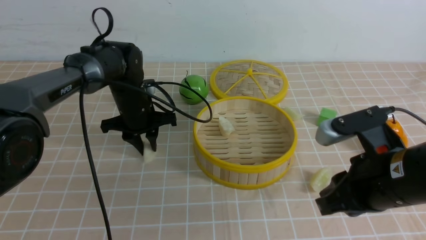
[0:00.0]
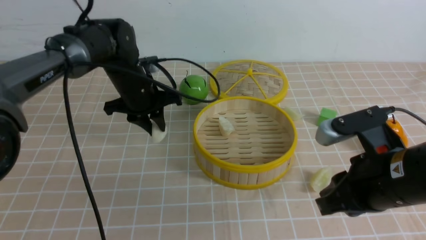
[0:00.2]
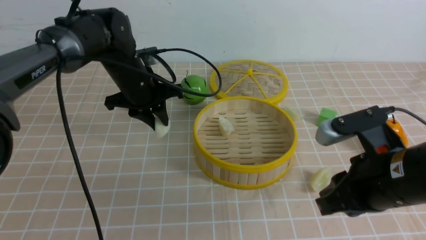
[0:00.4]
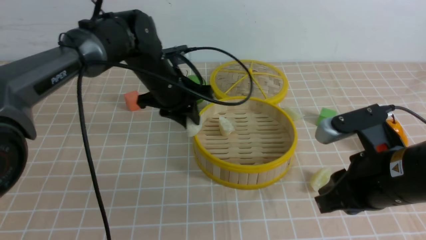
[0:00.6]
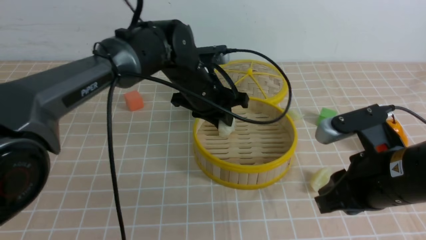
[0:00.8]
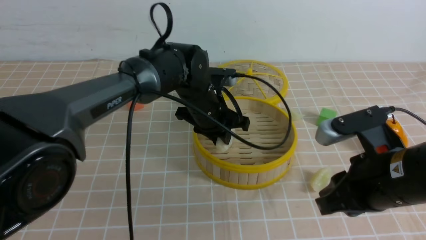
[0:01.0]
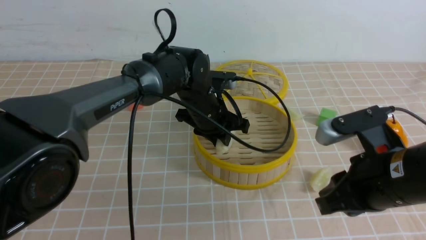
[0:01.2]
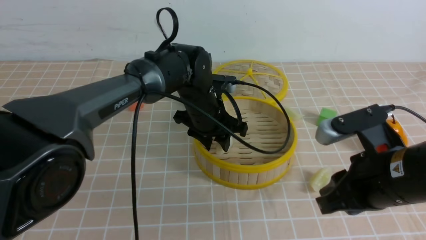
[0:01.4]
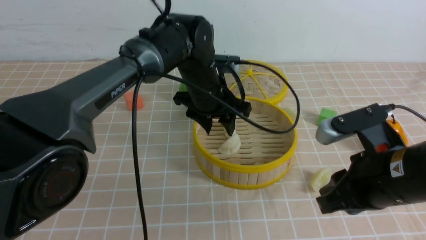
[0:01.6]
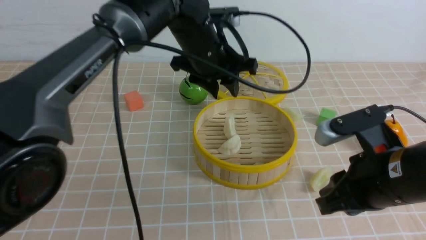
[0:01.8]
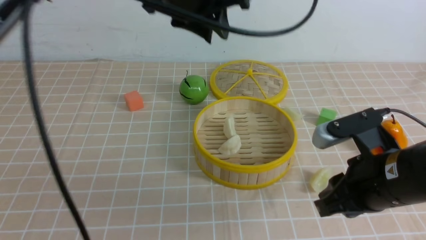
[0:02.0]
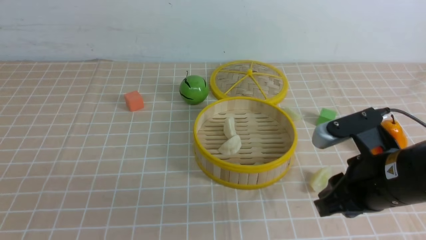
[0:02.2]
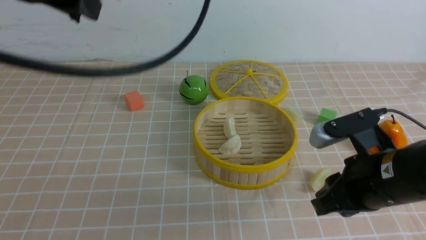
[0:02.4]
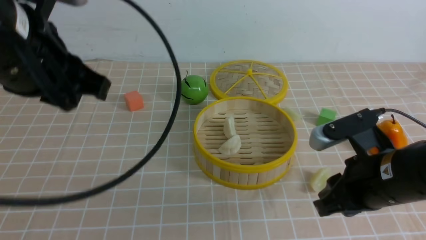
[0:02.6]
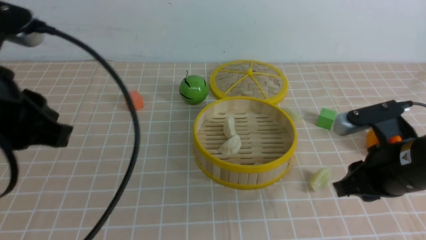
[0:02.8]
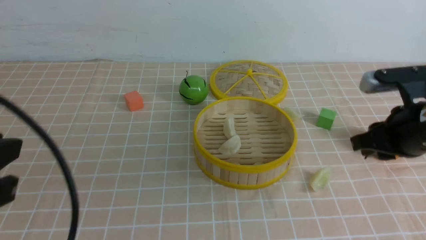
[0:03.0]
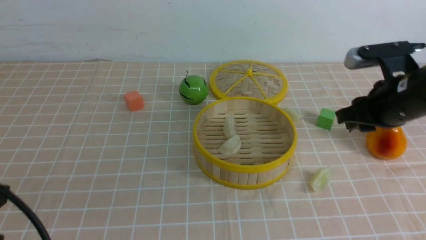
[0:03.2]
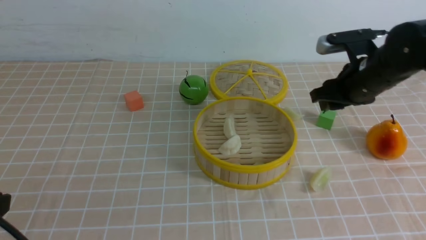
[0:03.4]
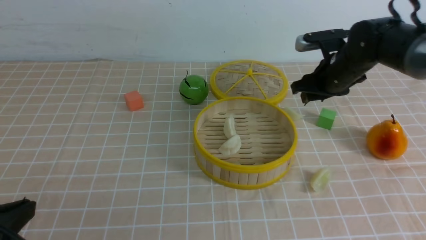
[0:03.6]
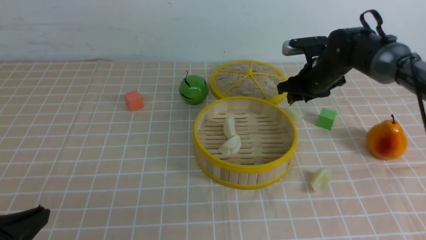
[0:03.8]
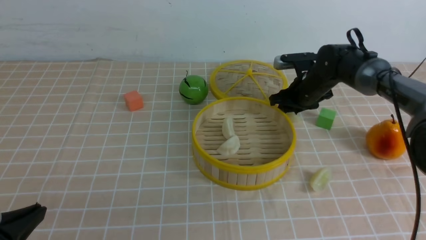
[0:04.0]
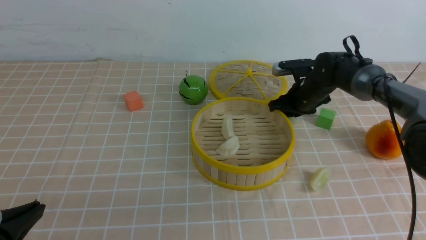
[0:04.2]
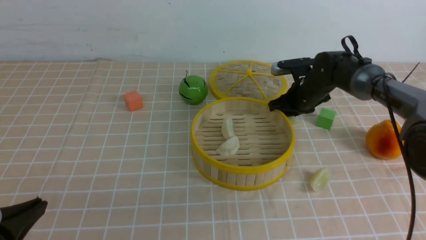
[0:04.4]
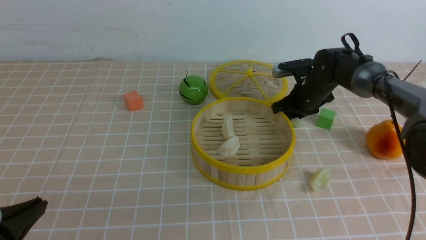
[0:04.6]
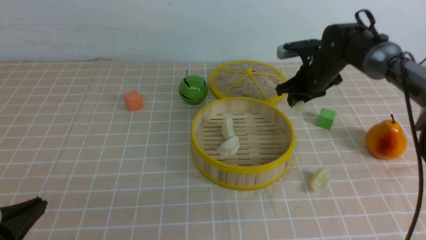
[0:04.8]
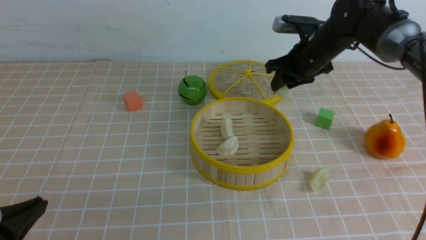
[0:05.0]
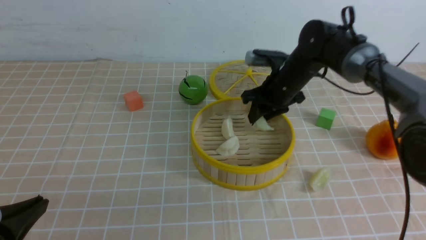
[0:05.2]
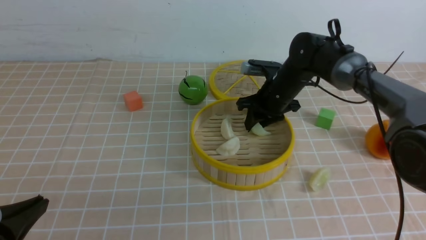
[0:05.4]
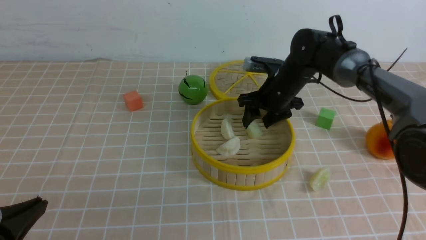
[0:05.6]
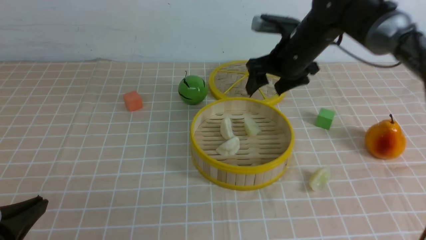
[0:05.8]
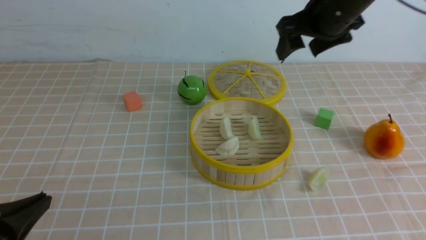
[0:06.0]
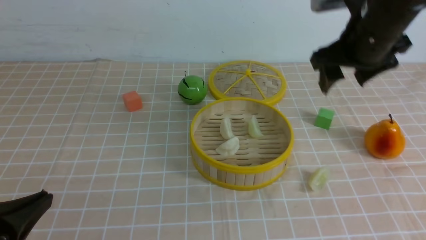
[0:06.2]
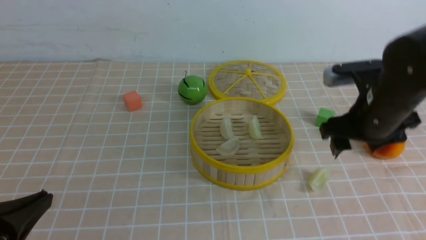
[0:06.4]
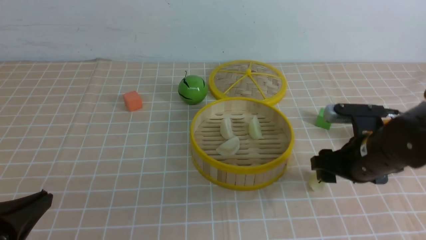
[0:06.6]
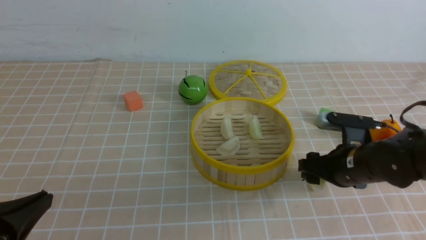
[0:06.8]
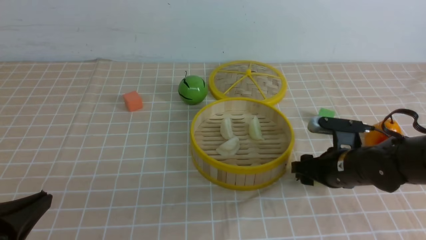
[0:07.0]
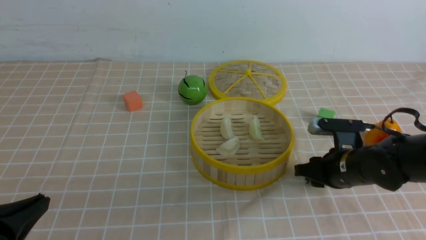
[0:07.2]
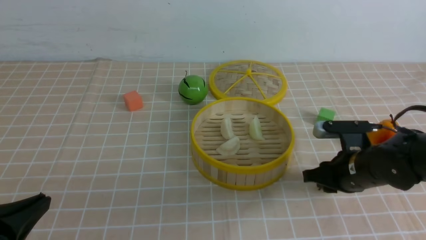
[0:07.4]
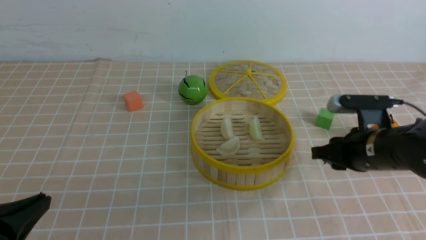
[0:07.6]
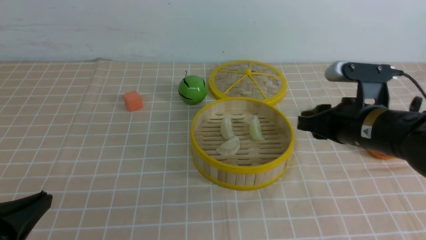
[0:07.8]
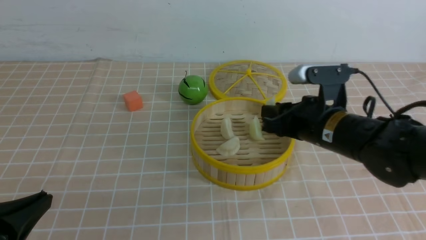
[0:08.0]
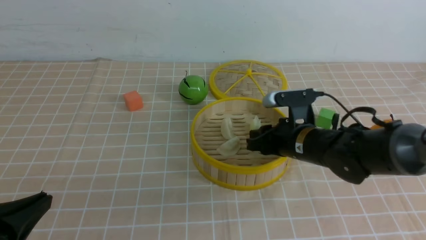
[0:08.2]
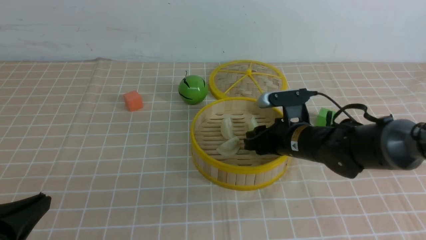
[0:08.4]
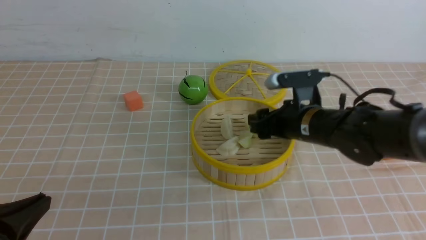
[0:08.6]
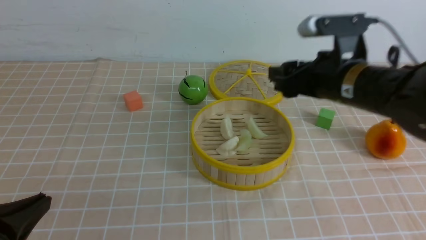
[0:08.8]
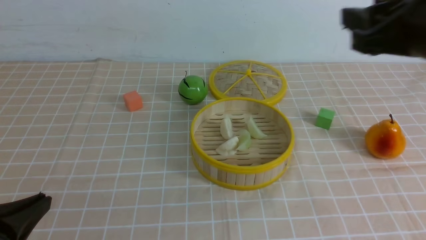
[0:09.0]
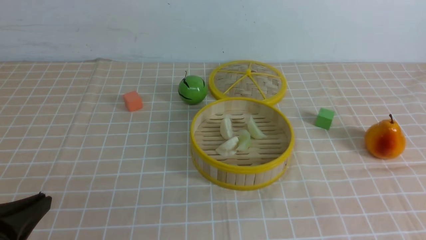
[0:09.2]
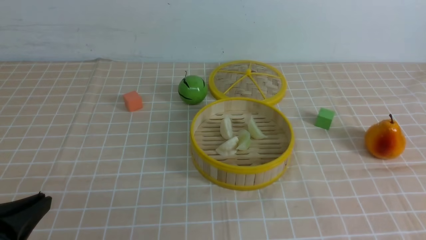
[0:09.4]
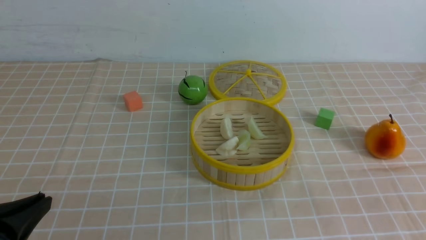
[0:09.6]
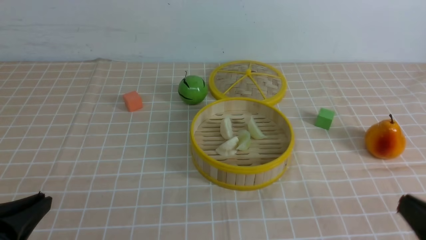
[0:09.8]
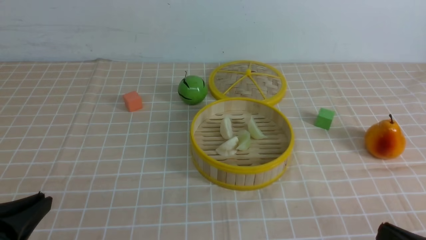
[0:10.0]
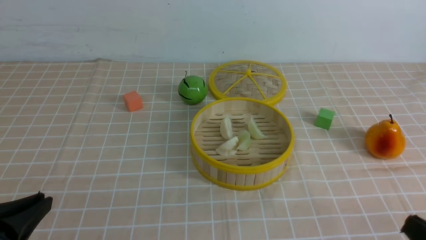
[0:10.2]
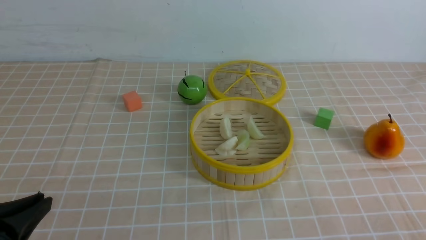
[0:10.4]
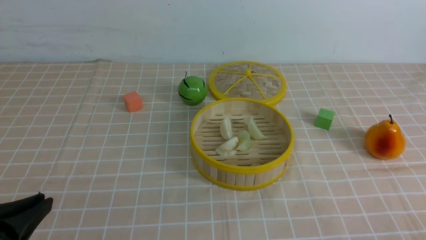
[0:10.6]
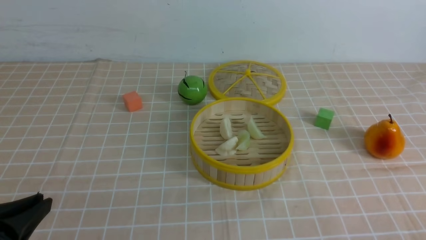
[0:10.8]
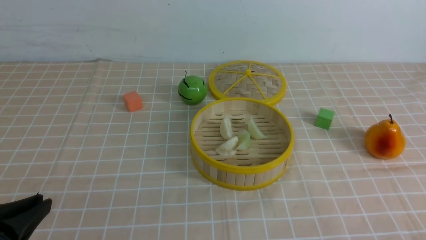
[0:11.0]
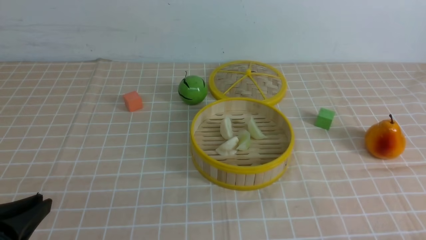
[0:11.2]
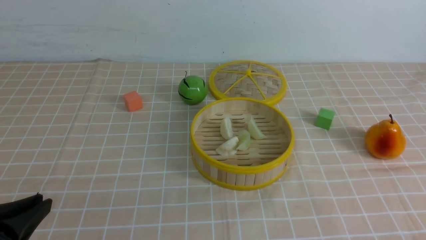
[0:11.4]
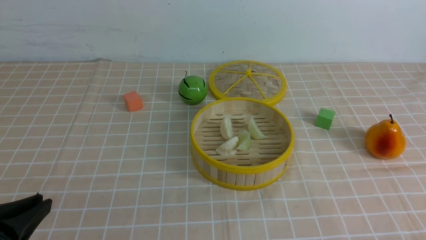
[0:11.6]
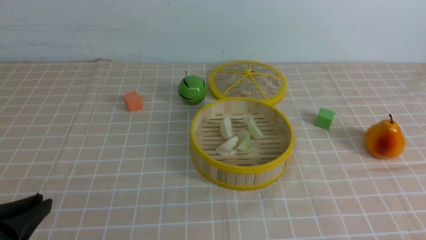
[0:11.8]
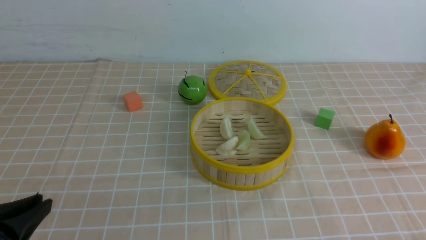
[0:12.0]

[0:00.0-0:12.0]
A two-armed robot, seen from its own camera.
Task of the whole recording: put the dumplings into the steamer on the table with the brown tablecloth.
Step, 0:00.0 to 0:01.6: use the left arm to put the dumpling into the steamer.
Step, 0:01.8 to 0:04.4: use the right arm to grab a dumpling.
Step, 0:04.6 to 0:05.6: use the right arm to put the dumpling into the steamer.
Step, 0:05.8 to 0:07.2: use the right arm to grab a dumpling.
Step, 0:07.4 to 0:08.6: use the right arm to put the dumpling into the steamer.
0:00.0 to 0:01.6: The left gripper moves to the right and upward, approximately 15 cm.
0:01.6 to 0:03.0: The right gripper heads forward, covering some 5 cm. The left gripper goes roughly 35 cm backward and to the left, and closes its fingers.
0:03.0 to 0:04.4: The right gripper heads forward and downward, covering about 25 cm. The left gripper shifts about 10 cm downward, and closes up.
0:04.4 to 0:06.0: The right gripper goes some 25 cm upward and backward, and opens up.
0:06.0 to 0:07.6: The right gripper shifts some 20 cm downward and backward, and closes its fingers.
0:07.6 to 0:09.0: The right gripper is displaced upward and backward by approximately 20 cm.
0:09.0 to 0:10.4: The right gripper is displaced downward and backward by approximately 25 cm, and closes.

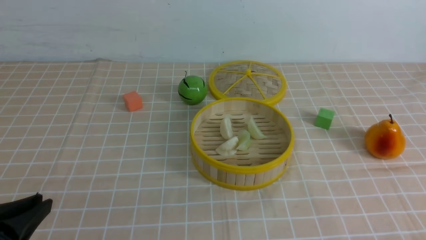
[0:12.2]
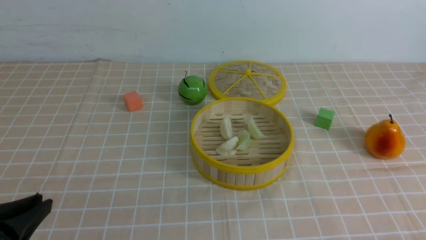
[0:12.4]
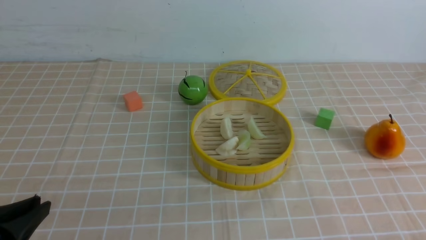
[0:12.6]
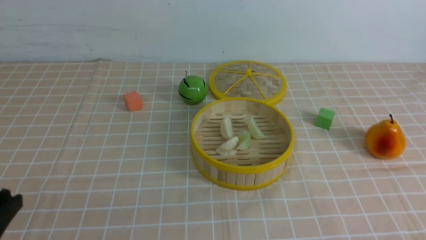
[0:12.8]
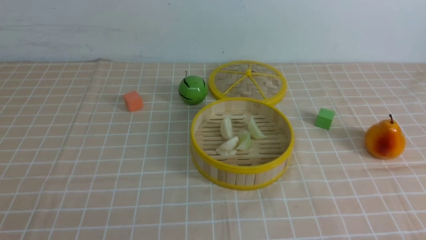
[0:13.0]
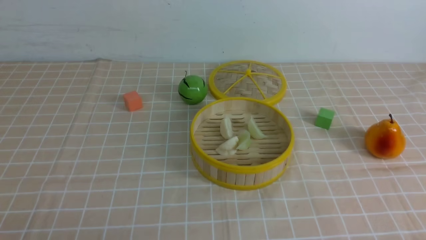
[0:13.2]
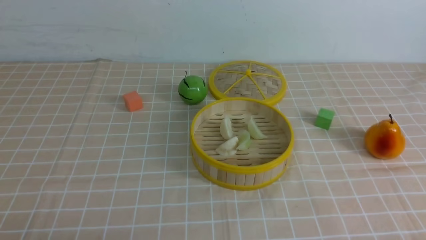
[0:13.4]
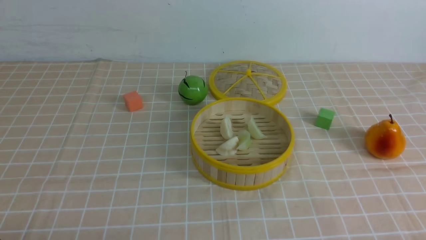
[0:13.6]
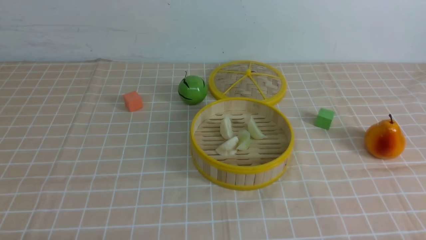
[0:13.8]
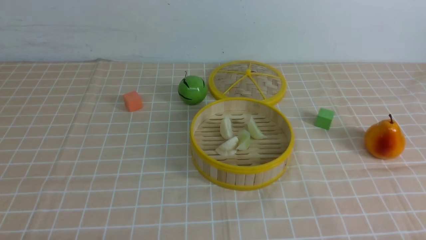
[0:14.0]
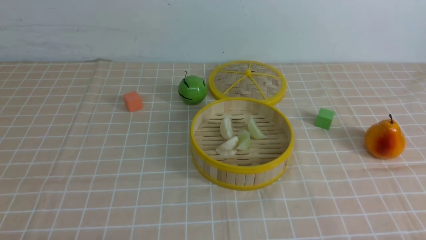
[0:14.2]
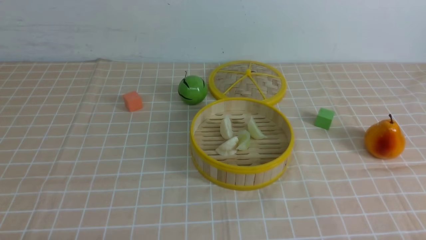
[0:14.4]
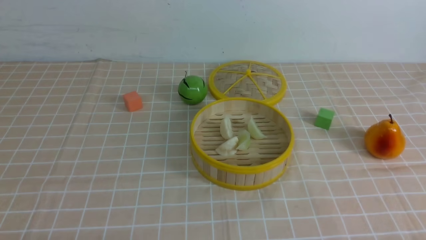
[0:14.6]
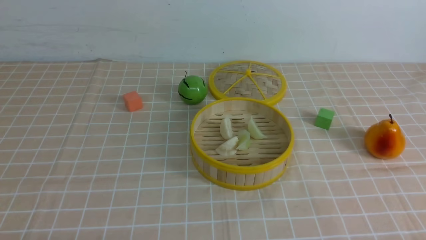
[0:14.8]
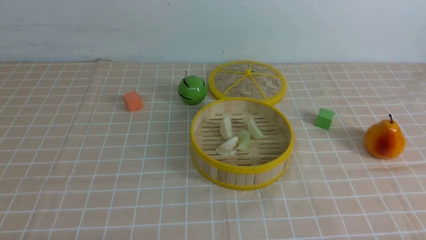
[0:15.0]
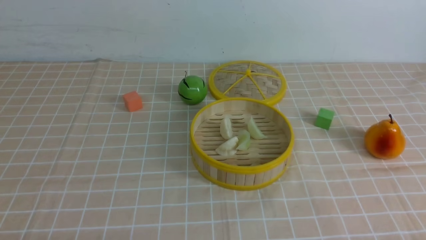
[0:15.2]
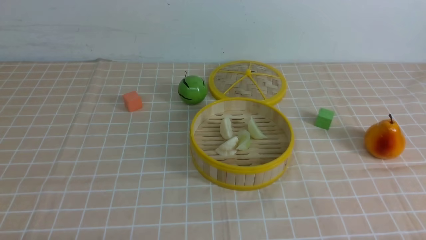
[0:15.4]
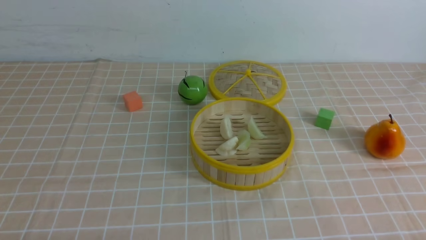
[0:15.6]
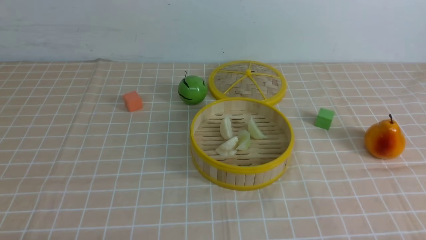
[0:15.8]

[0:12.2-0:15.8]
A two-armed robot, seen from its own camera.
Task of the whole recording: put the dumplings into the steamer on the table with the brown tablecloth.
0:12.2 to 0:14.0: The left gripper goes some 10 cm downward.
0:14.0 to 0:15.8: Neither gripper changes place.

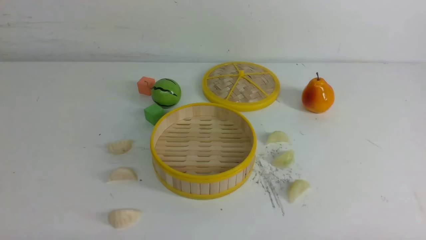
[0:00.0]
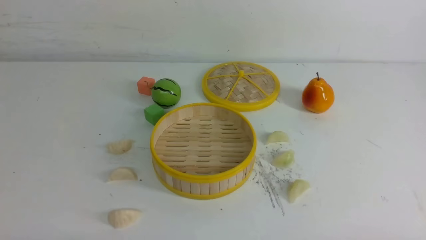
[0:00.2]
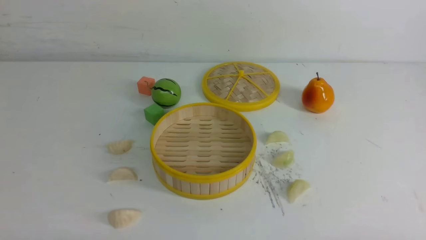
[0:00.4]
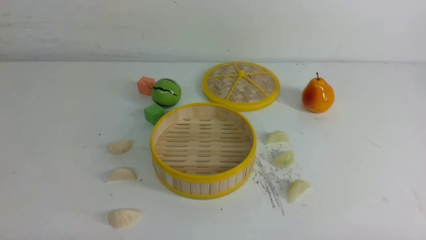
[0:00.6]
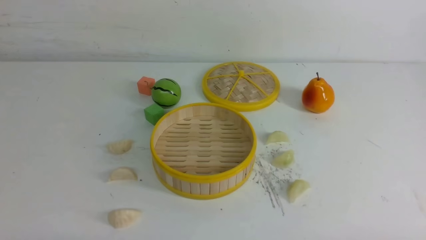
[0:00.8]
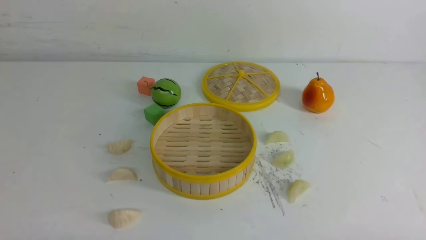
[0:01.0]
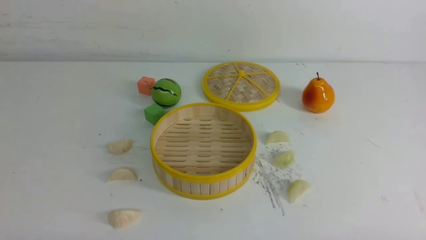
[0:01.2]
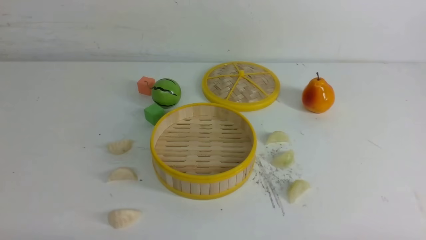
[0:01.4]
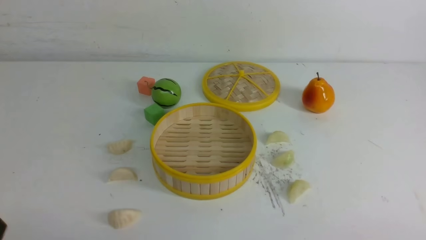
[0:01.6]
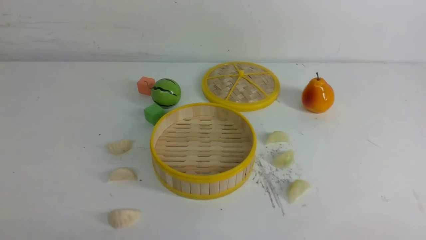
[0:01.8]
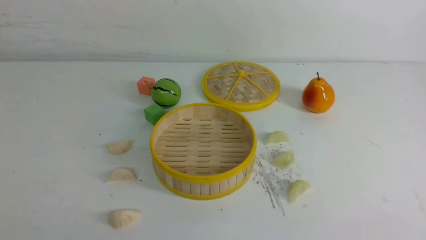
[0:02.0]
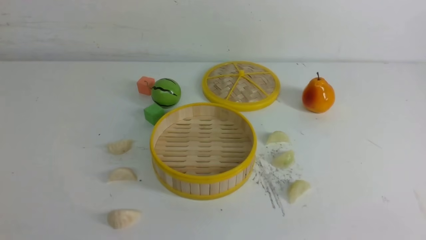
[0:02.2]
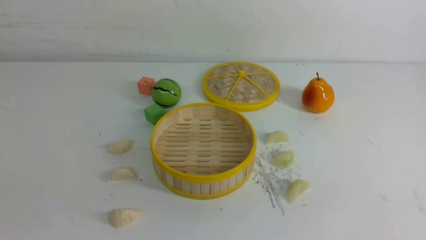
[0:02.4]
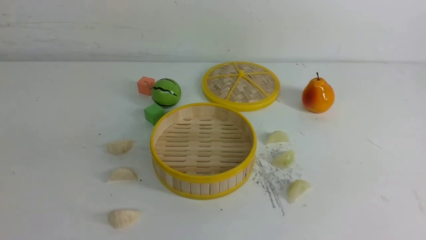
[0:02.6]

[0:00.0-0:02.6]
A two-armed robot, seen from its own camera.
Task of the whole recording: put the dumplings into the steamer on the white table.
0:00.0 to 0:01.2: Both grippers stay put.
